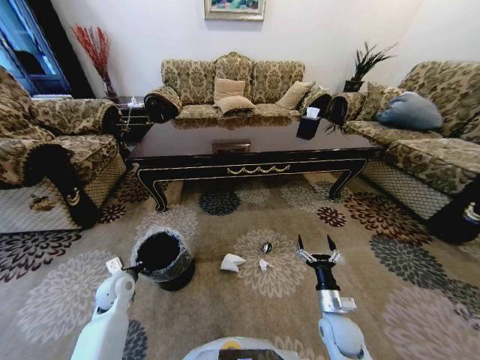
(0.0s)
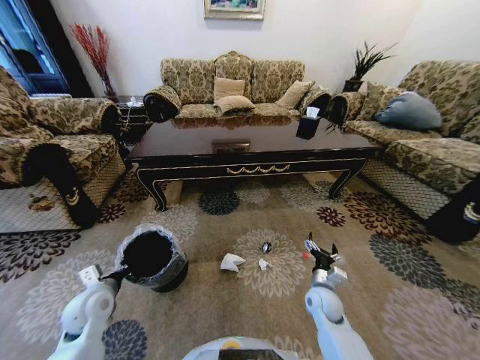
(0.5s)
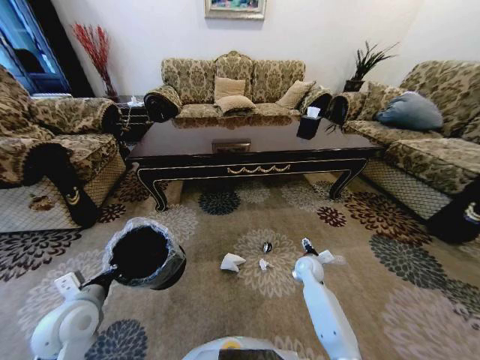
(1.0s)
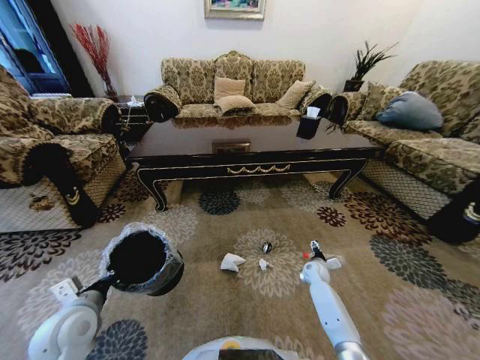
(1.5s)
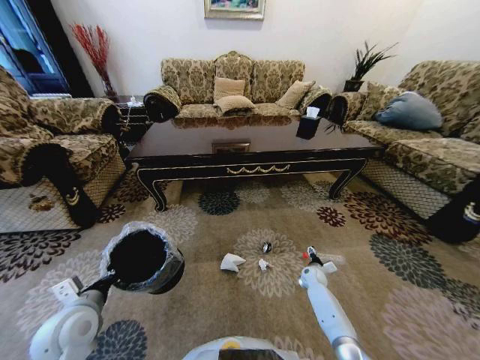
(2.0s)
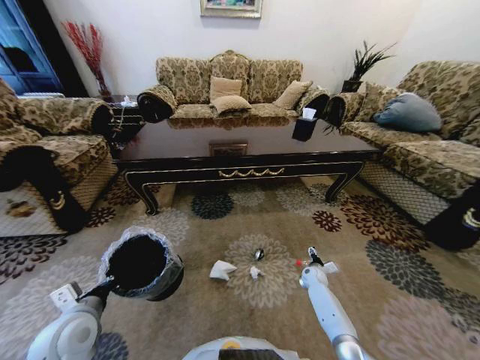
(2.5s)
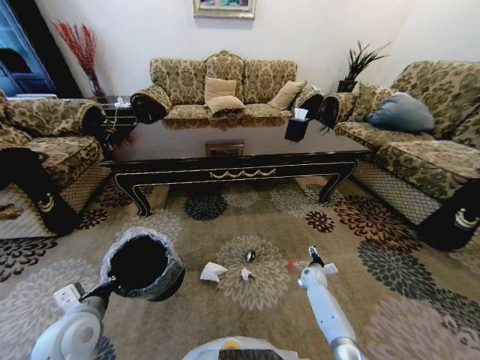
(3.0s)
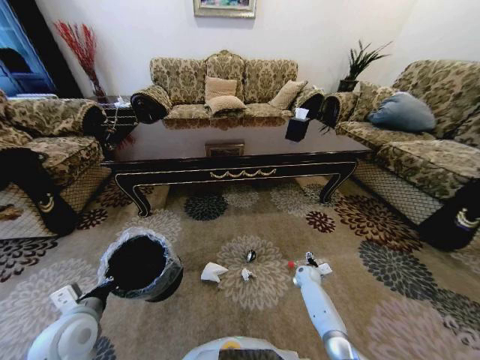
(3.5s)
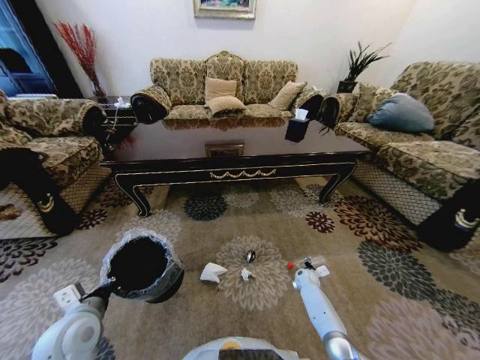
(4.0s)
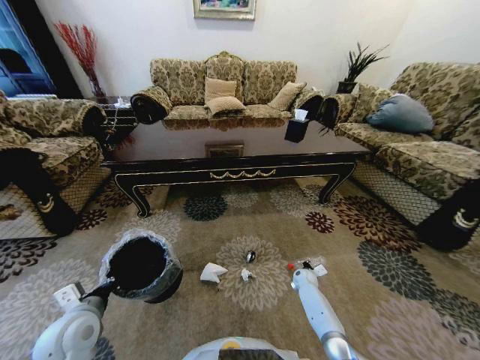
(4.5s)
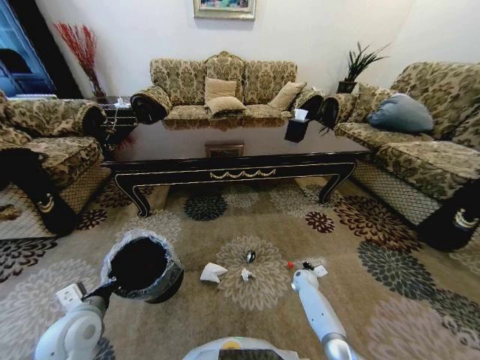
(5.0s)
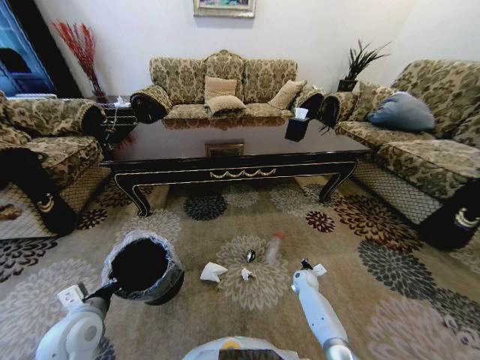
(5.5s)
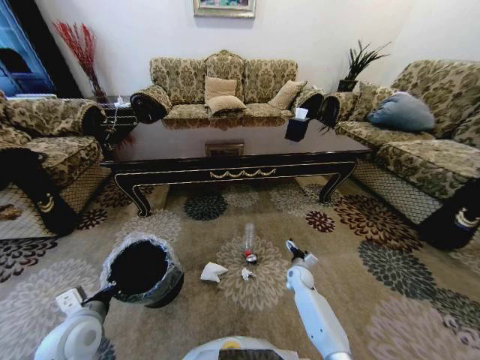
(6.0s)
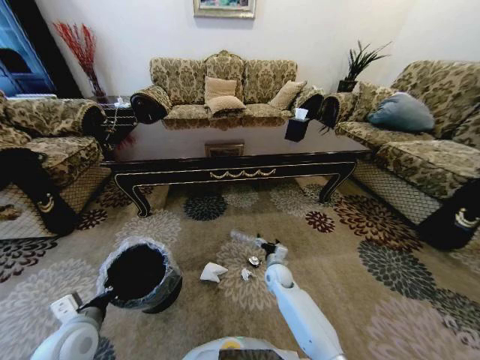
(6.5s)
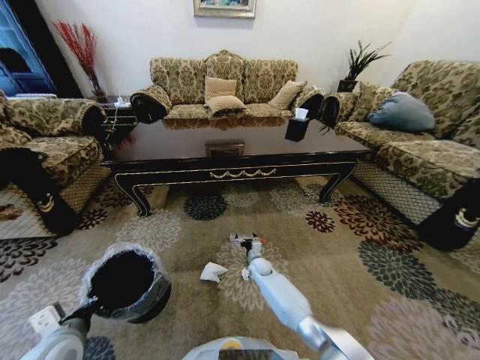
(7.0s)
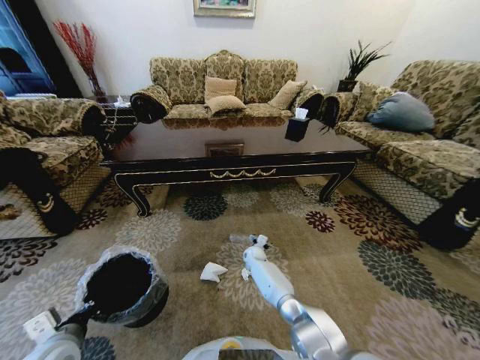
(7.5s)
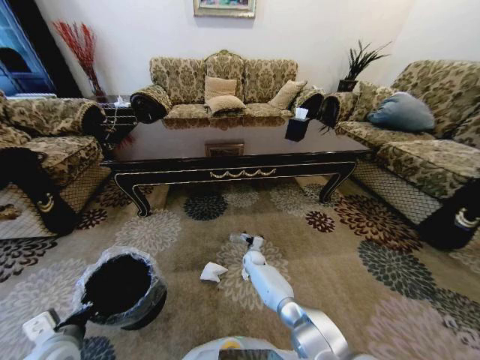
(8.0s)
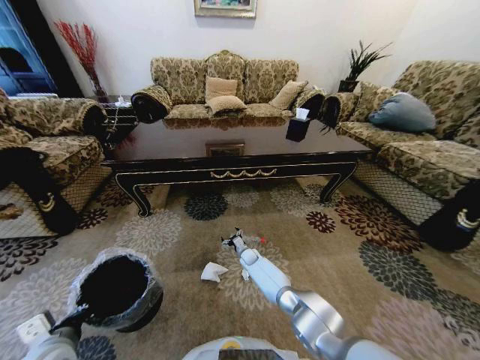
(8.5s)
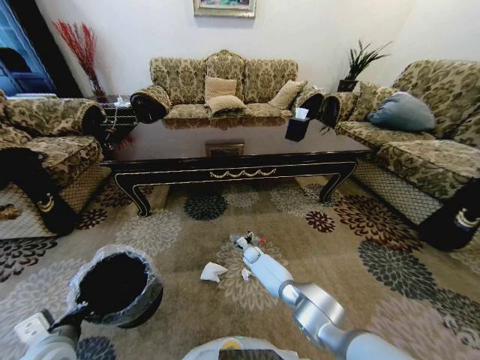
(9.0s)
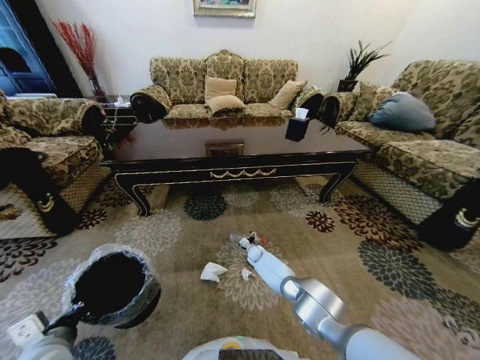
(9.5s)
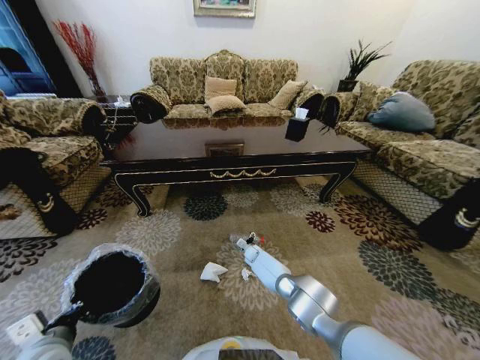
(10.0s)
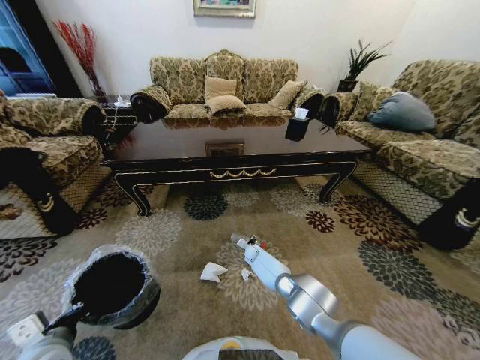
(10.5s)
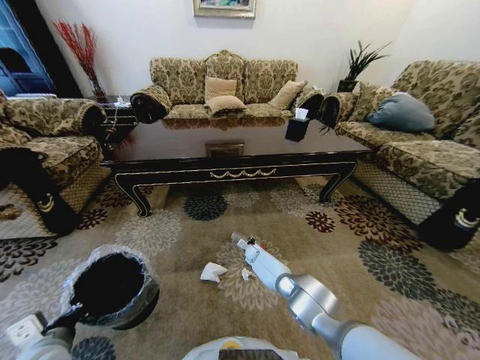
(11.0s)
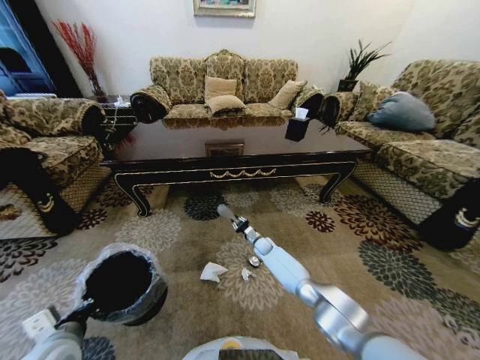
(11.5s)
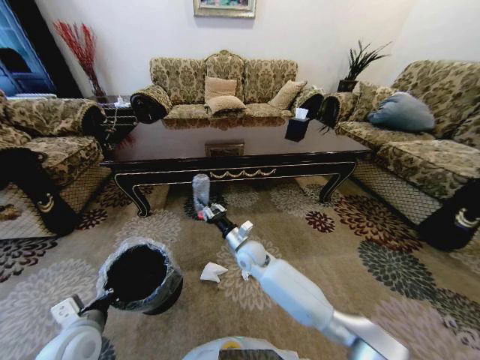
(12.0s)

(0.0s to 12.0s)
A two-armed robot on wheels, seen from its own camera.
Task of the whole recording: Move to the front of the table and pick up the trash from the floor, then place it into the trash bin.
0.0s - 2.0s: The right gripper is displaced forward and downward by roughly 25 cm. The left gripper goes roughly 15 cm backward and upward.
4.0s - 6.0s: The right gripper heads upward and to the left, covering some 10 cm, and closes, then reopens.
6.0s - 8.0s: The right gripper goes roughly 20 cm to the left and forward.
10.0s - 12.0s: The right gripper travels upward and backward by some 25 cm, and closes.

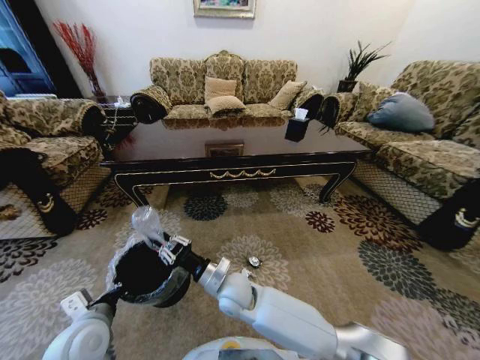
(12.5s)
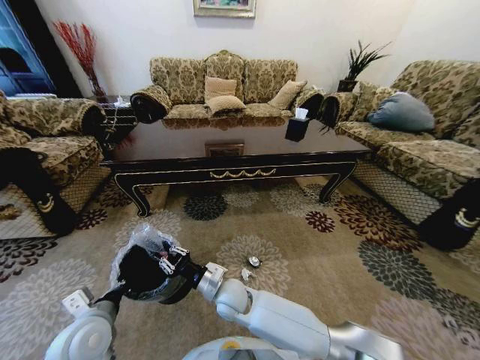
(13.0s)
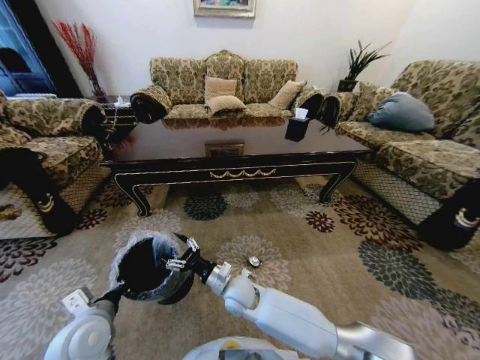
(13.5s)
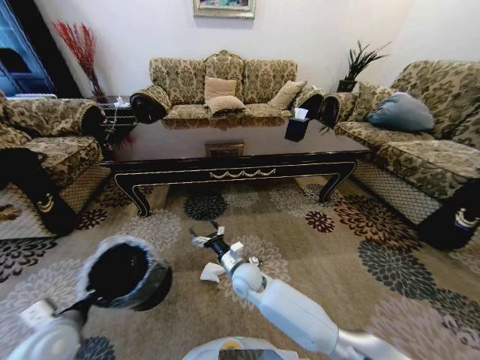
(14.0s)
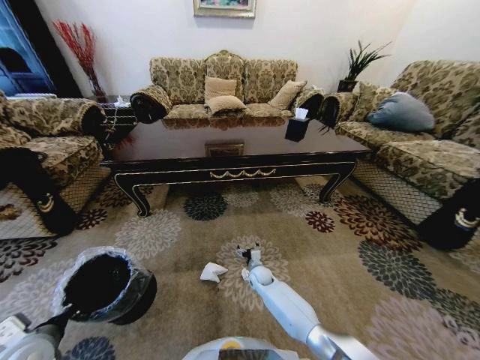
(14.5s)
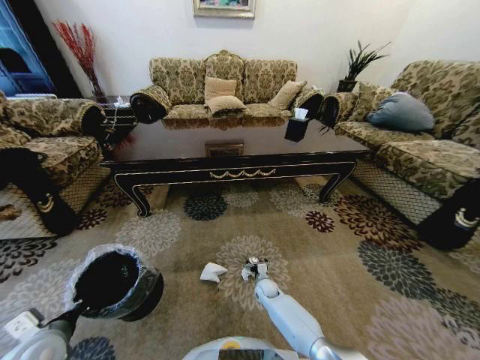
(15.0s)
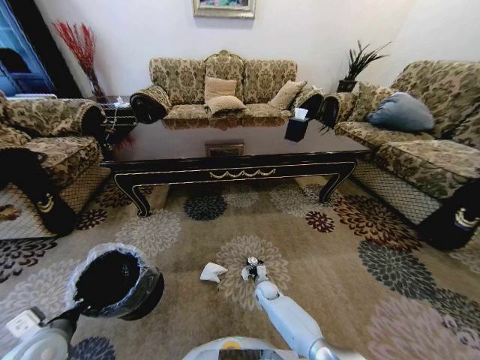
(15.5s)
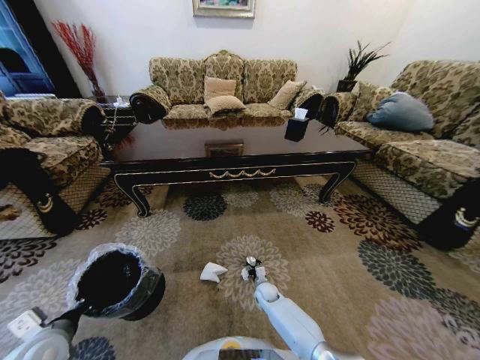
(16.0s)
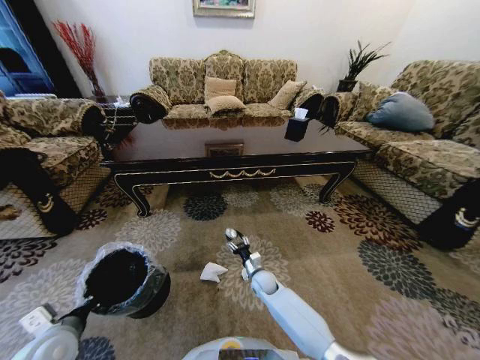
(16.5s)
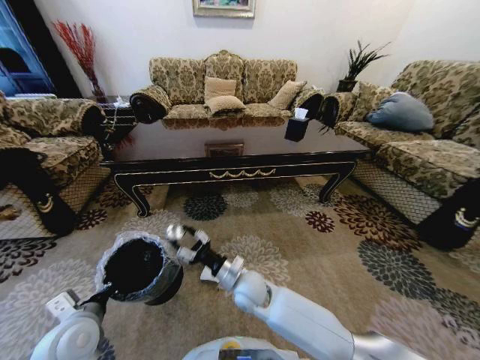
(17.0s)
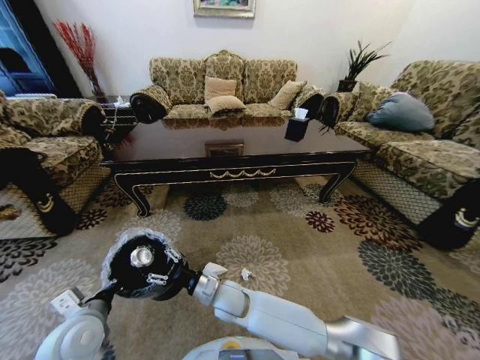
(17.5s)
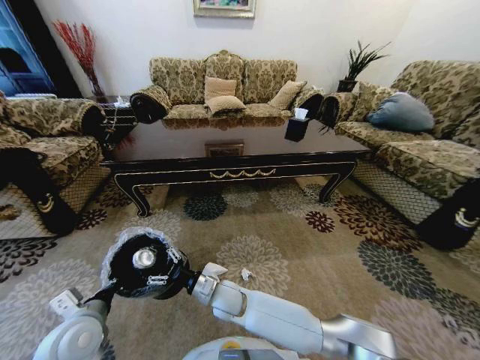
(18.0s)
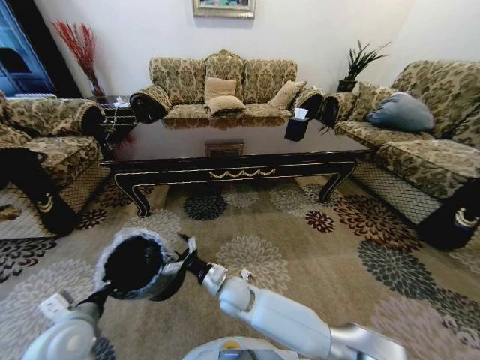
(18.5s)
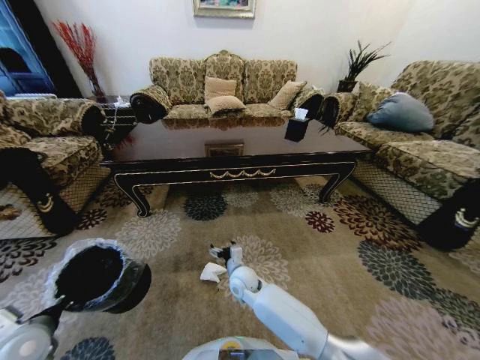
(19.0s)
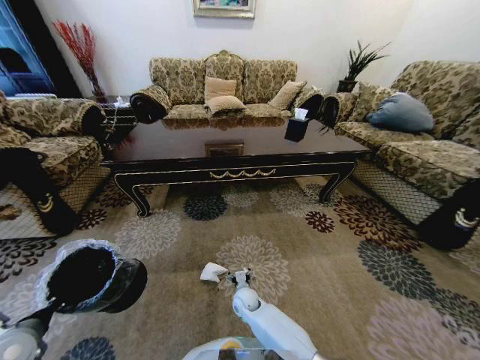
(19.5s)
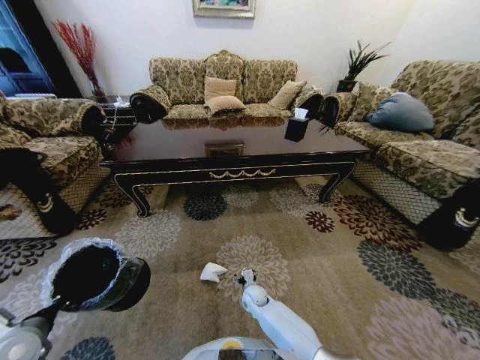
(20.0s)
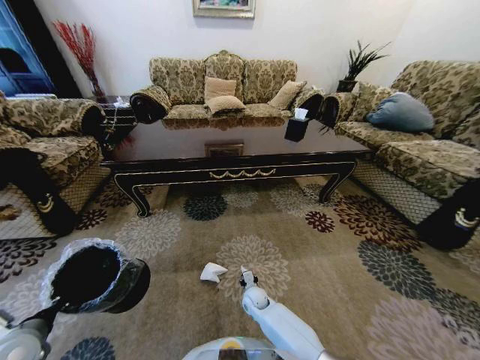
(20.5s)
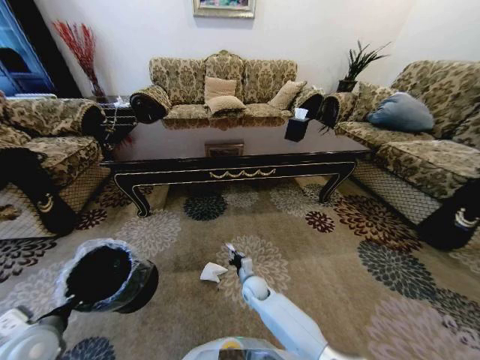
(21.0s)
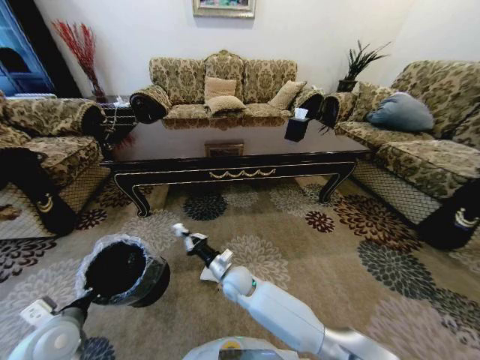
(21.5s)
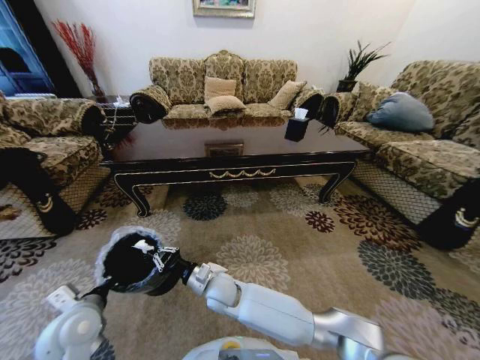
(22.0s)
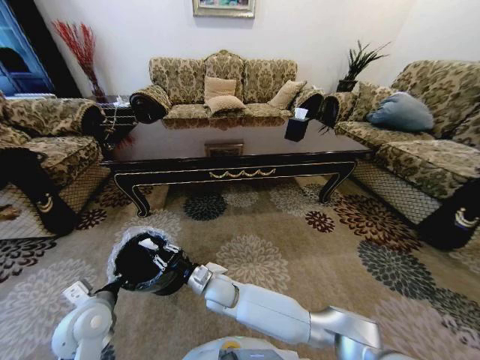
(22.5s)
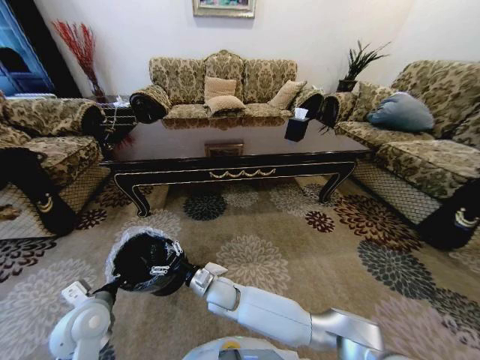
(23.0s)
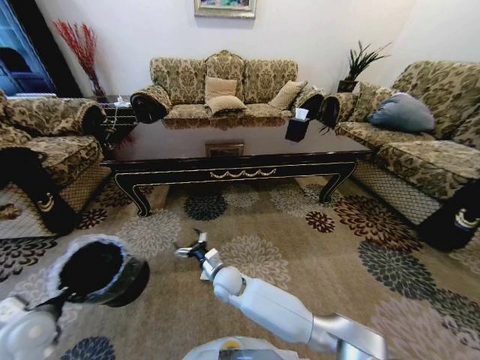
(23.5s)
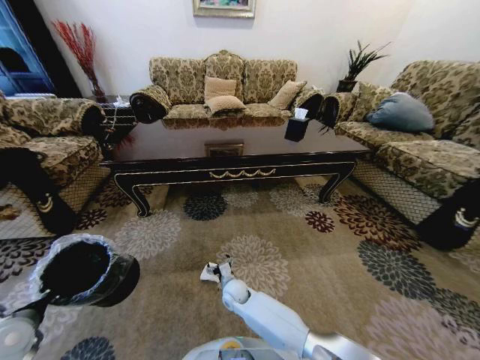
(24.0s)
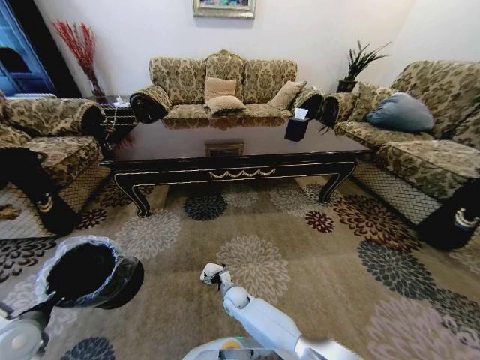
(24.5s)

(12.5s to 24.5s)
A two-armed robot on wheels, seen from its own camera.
Task of the whole recording: Move to the front of the table and pick up the trash from the floor, then place it into the trash bin.
12.5s - 14.5s: The right gripper heads downward, forward and to the right, covering roughly 25 cm, and opens. Meanwhile the left gripper goes approximately 10 cm to the left.
14.5s - 16.5s: The right gripper moves approximately 5 cm downward and comes back, and closes up.
16.5s - 18.5s: The right gripper heads to the left, upward and backward, covering some 20 cm, and opens its fingers.
18.5s - 20.5s: The left gripper shifts about 10 cm to the left. Meanwhile the right gripper goes approximately 20 cm downward and to the right, and closes its fingers.
20.5s - 22.5s: The right gripper travels upward and to the left by approximately 20 cm. Meanwhile the left gripper goes about 10 cm to the right and forward.
22.5s - 24.5s: The left gripper heads to the left, covering about 10 cm. The right gripper is displaced downward by roughly 15 cm, and opens up.

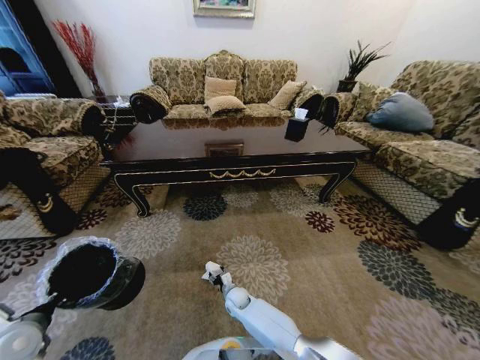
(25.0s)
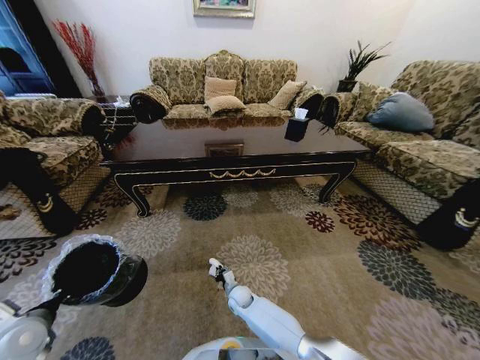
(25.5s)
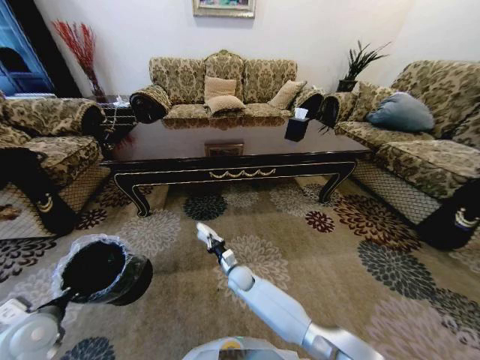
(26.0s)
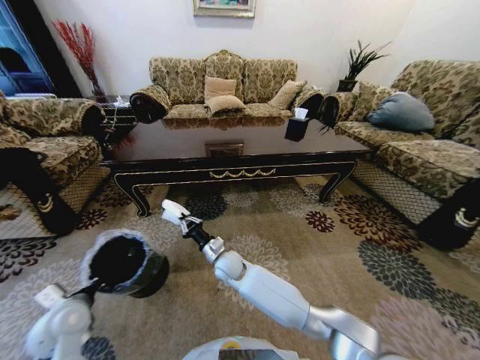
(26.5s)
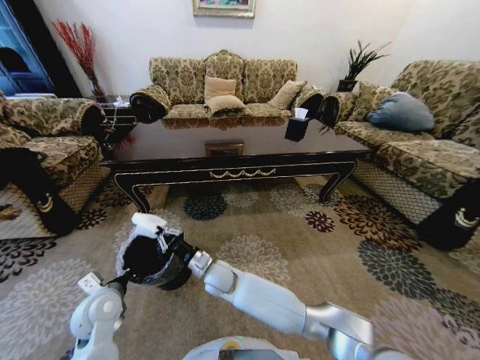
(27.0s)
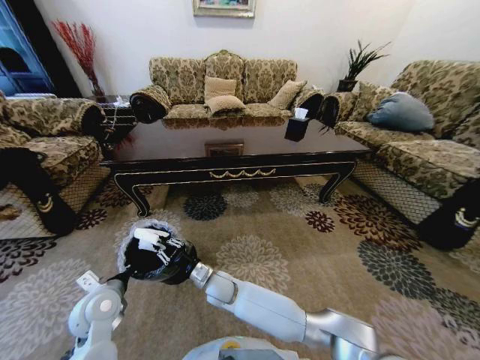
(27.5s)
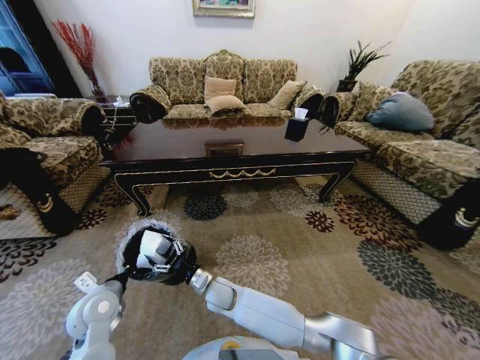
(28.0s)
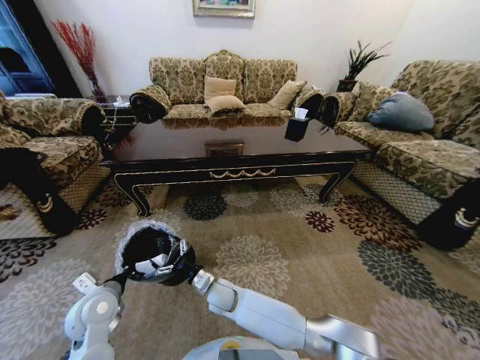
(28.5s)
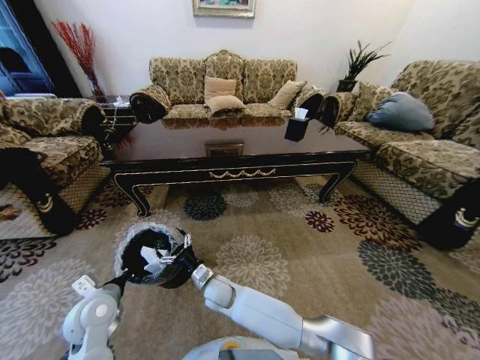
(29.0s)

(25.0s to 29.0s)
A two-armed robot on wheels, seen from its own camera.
Task of the whole recording: Move to the front of the table and pick up the trash from the floor, then place it into the trash bin.
25.0s - 27.0s: The right gripper heads upward, covering about 20 cm, and closes its fingers; the left gripper shifts some 15 cm to the right and forward.
27.0s - 29.0s: The right gripper travels downward by about 5 cm, and opens its fingers.
